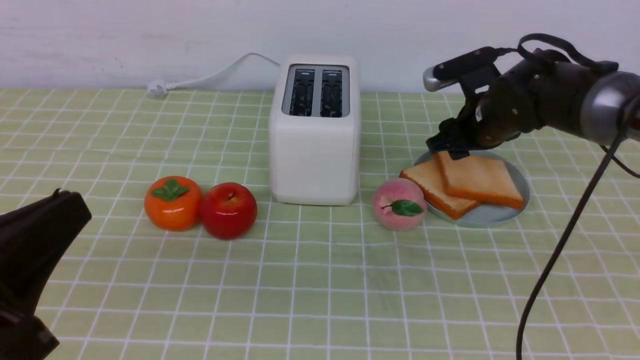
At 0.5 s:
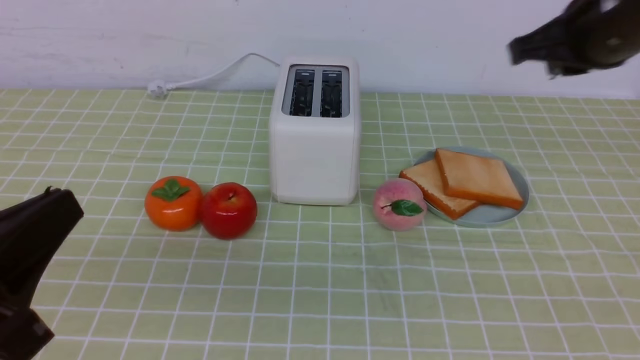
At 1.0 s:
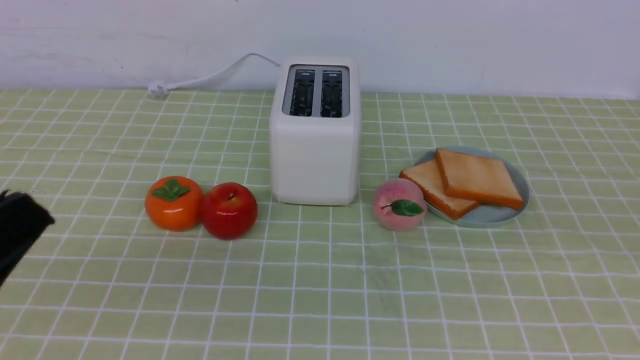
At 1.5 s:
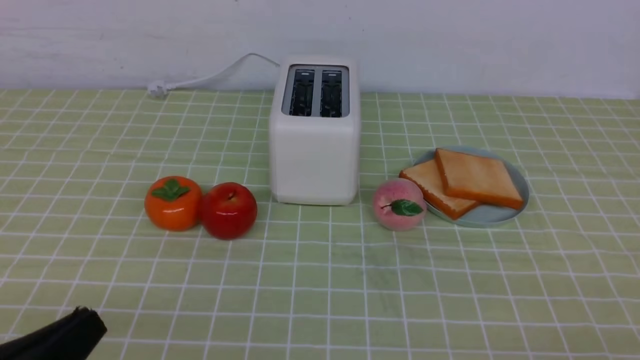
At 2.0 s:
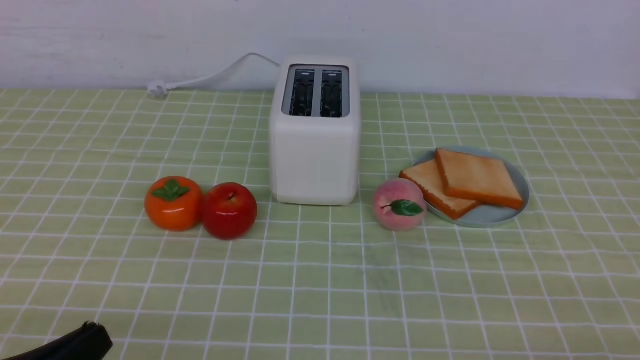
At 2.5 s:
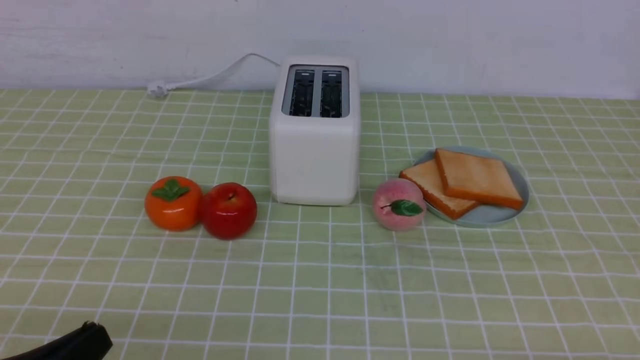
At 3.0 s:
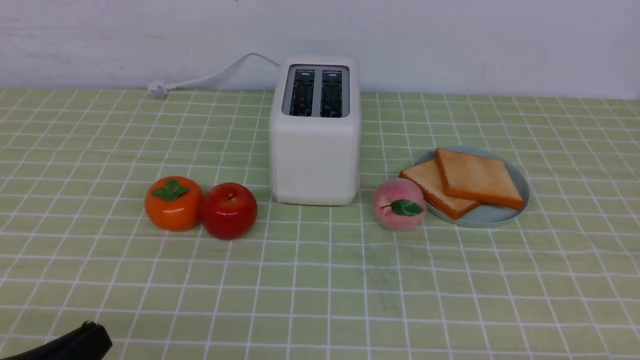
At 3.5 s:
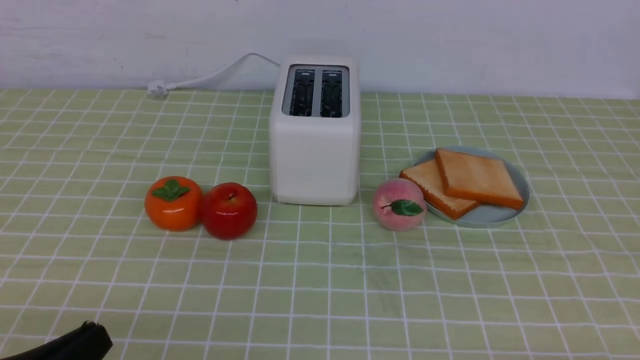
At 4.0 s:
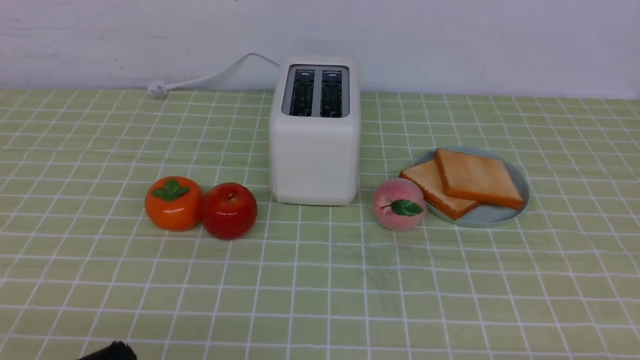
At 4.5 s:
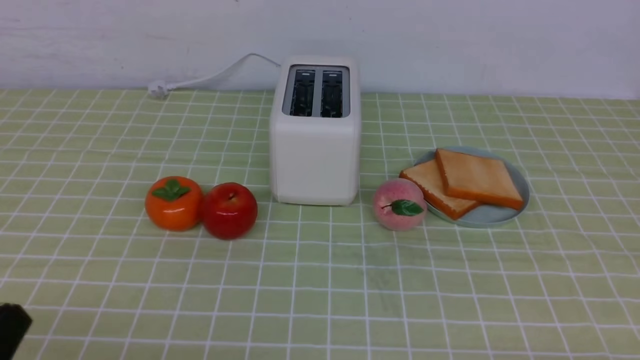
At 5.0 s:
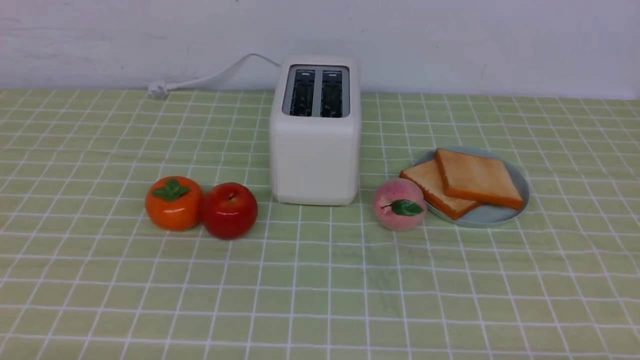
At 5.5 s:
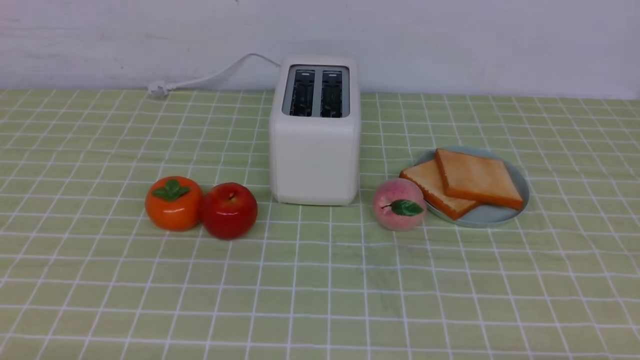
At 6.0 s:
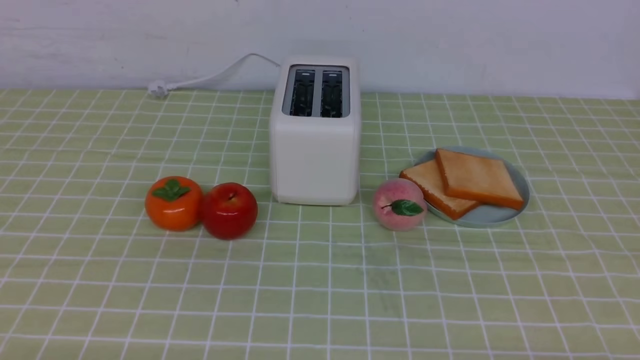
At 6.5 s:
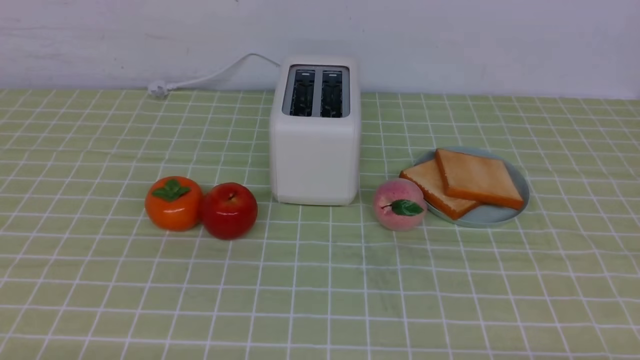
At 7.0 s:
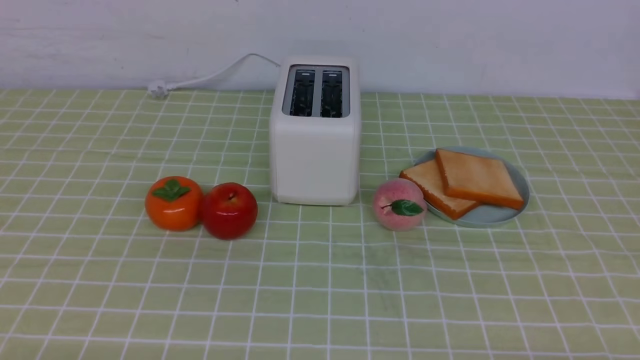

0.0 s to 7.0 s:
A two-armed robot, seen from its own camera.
Task of the whole recording: take toasted bread from bread machine on green coffee tablecloth place on plate.
0.0 to 2.0 s: The left gripper shifts approximately 10 cm downward. The right gripper travels backward by approximately 40 cm, and closes its fingers.
3.5 to 5.0 s: The left gripper ends up some 5 cm from where it was.
5.0 to 7.0 s: The two grippers keep their place.

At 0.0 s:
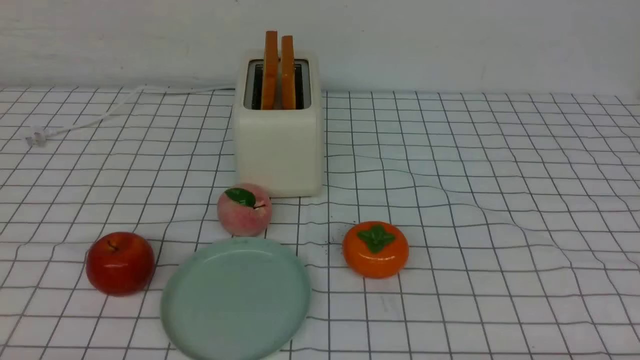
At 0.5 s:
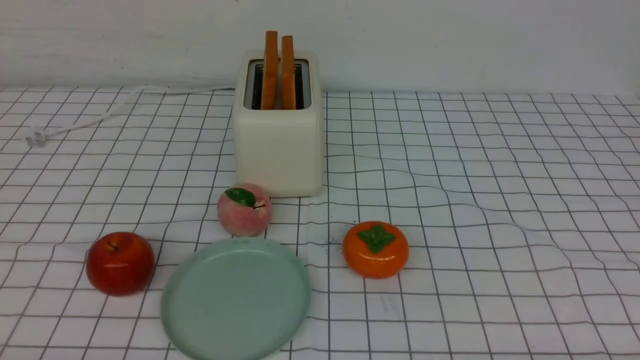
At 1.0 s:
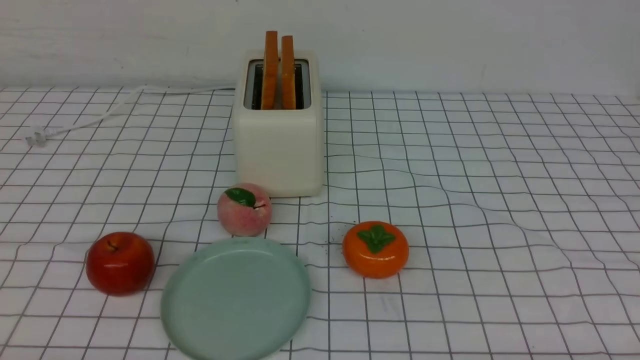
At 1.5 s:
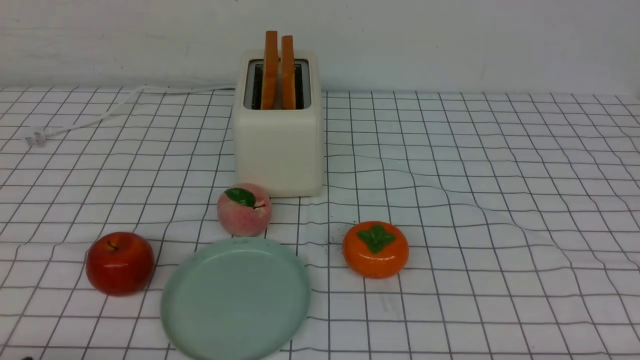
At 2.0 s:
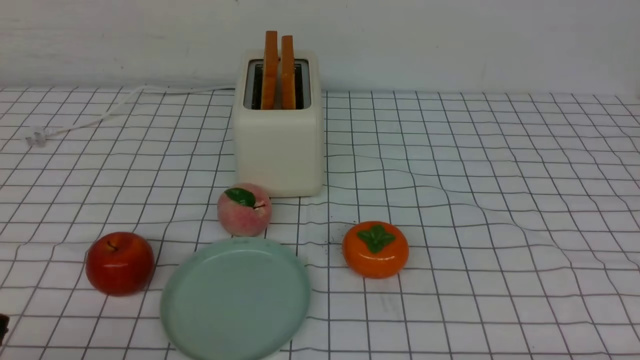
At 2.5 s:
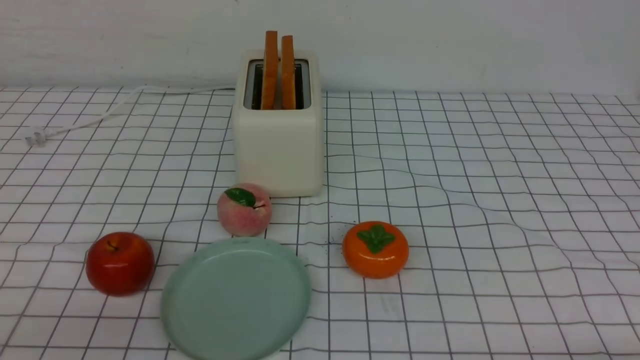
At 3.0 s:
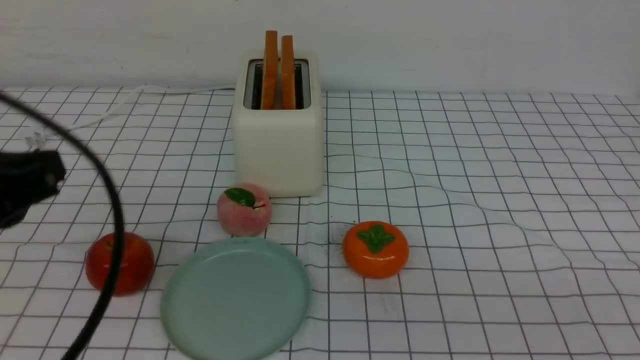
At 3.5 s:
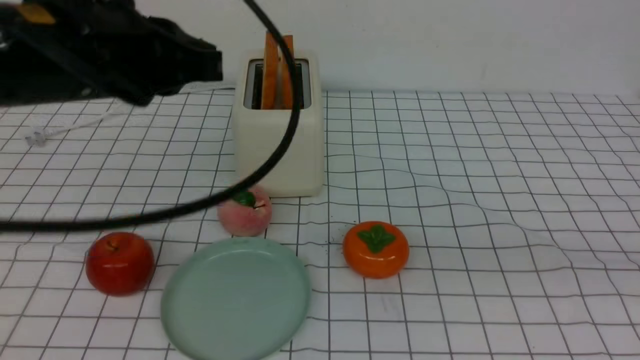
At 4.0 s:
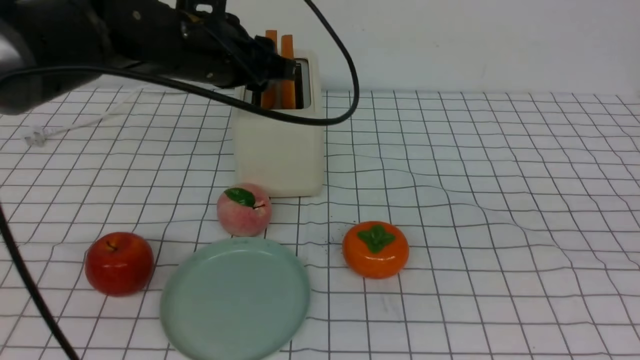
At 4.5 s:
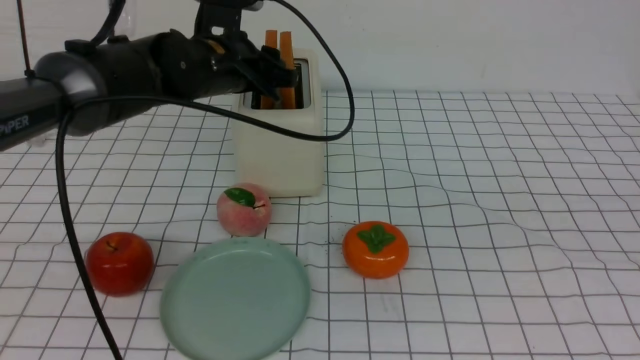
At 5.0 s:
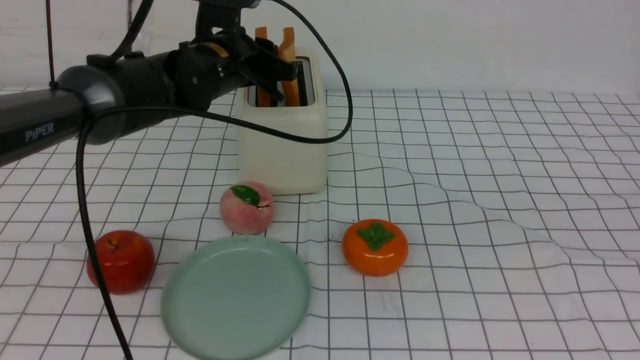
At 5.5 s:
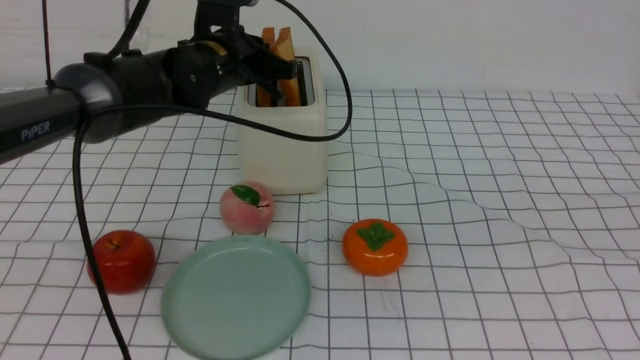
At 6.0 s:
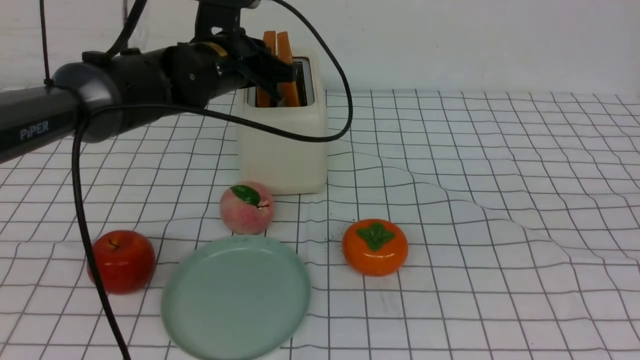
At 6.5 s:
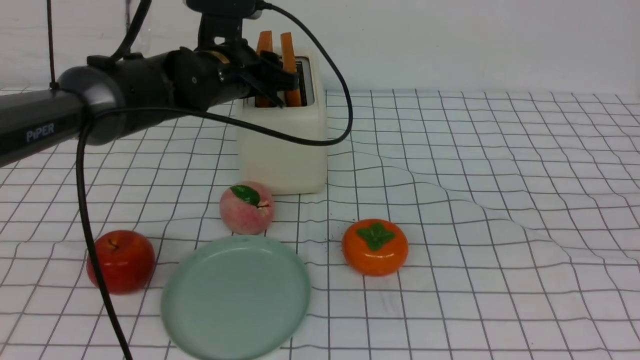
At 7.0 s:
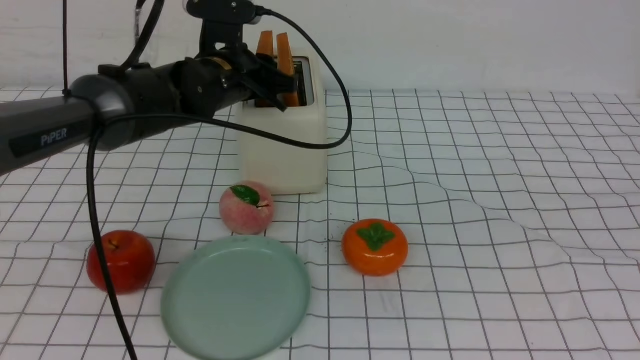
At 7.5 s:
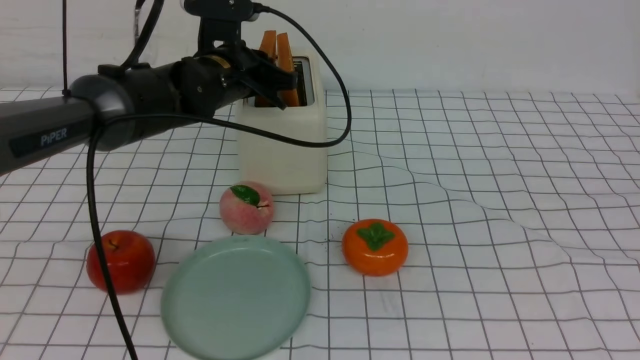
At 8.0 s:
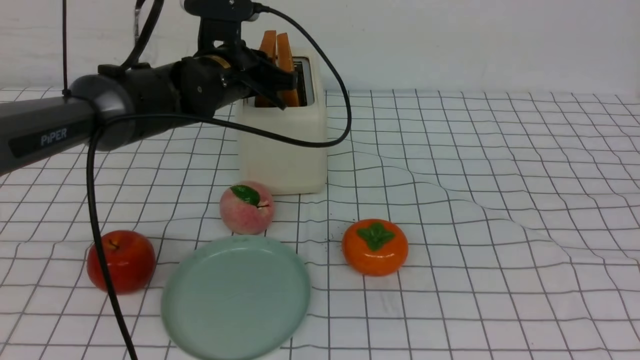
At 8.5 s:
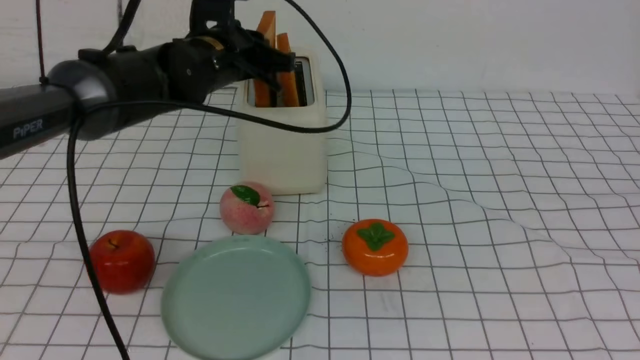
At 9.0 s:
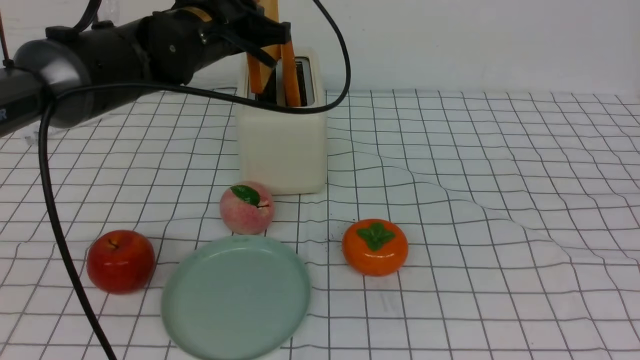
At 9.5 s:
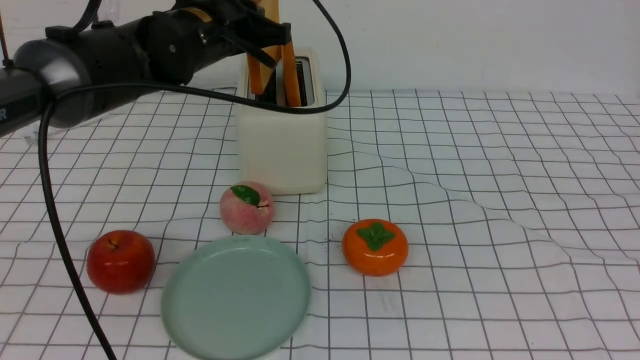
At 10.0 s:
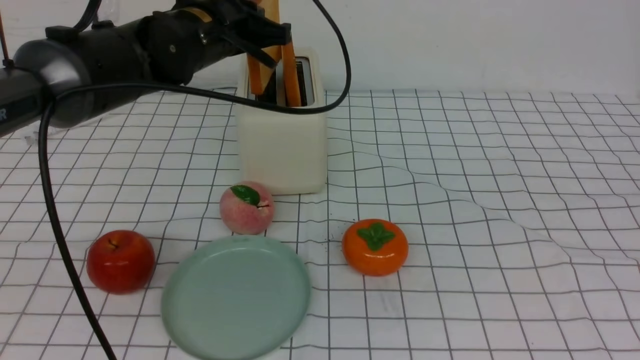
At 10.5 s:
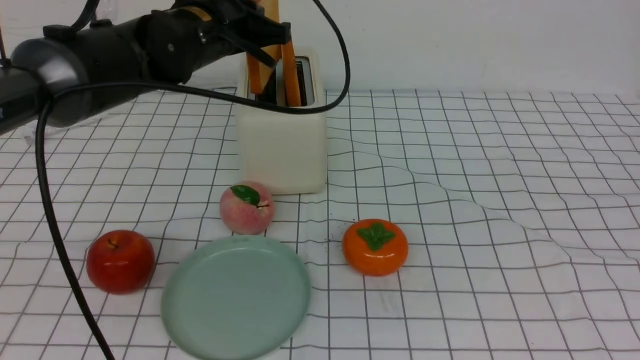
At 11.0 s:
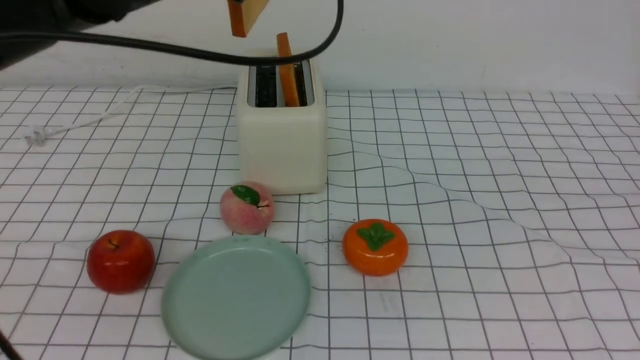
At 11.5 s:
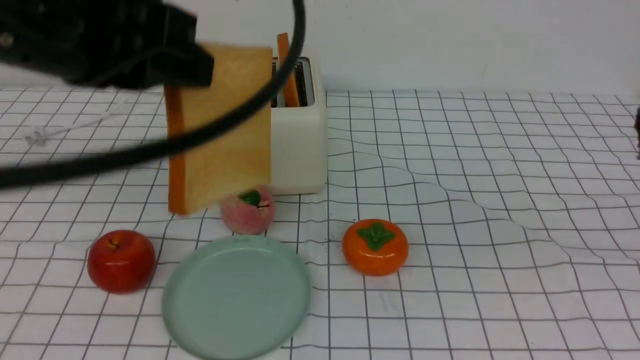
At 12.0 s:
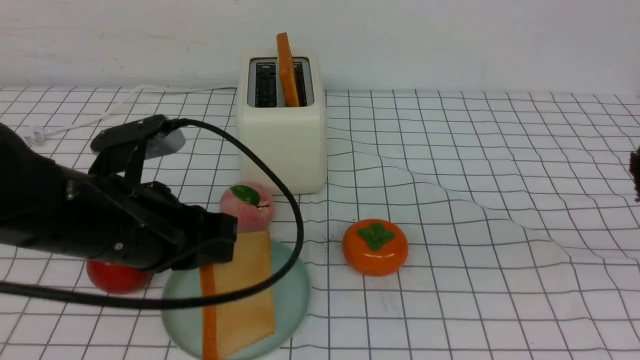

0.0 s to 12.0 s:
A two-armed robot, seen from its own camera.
Task of the whole recording: take toasted bread from bread machine on white checkered table place on plate.
Step, 0.0 to 8.5 s: use the left arm to take out a slice of bread.
2.0 to 4.0 s: The right gripper travels upward by some 25 cm, and closes. Meanwhile the left gripper shifts about 40 cm forward, upward and to the right, and closes, then opens again.
4.0 to 6.0 s: The left gripper goes about 10 cm forward and downward, and closes.
6.0 to 8.0 s: The left gripper opens, then closes again.
8.0 to 10.0 s: The left gripper shifts approximately 5 cm upward.
10.0 to 12.0 s: The left gripper shifts roughly 20 cm backward.

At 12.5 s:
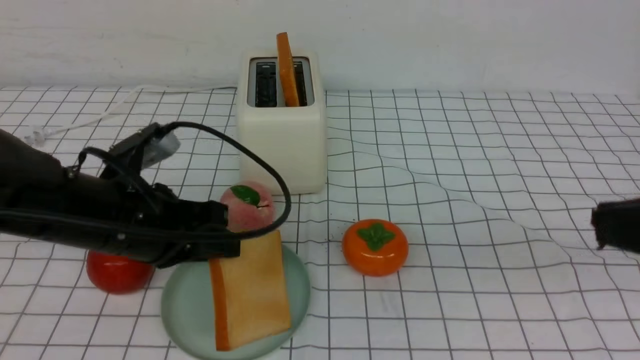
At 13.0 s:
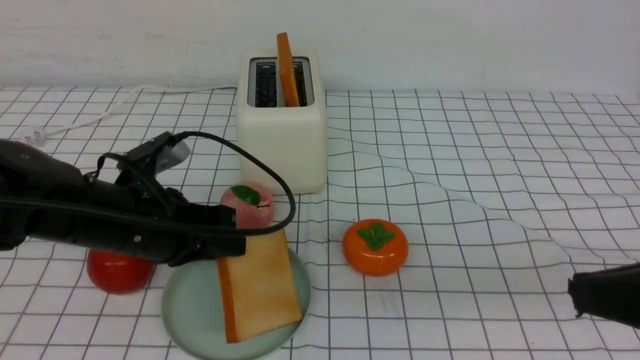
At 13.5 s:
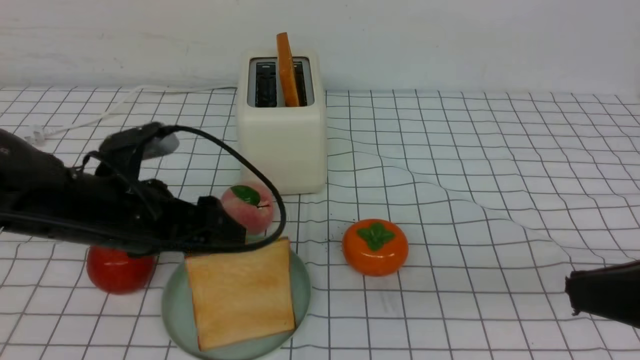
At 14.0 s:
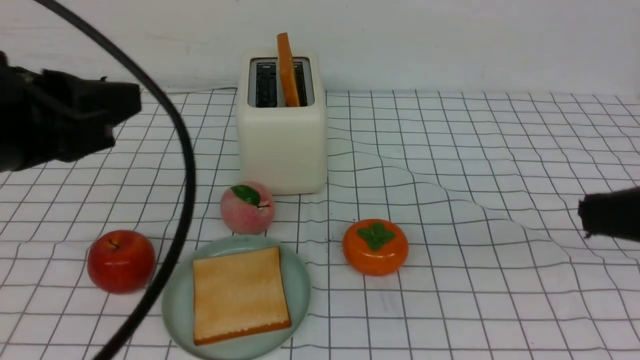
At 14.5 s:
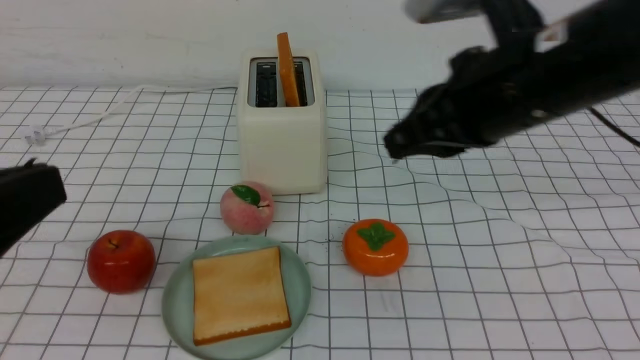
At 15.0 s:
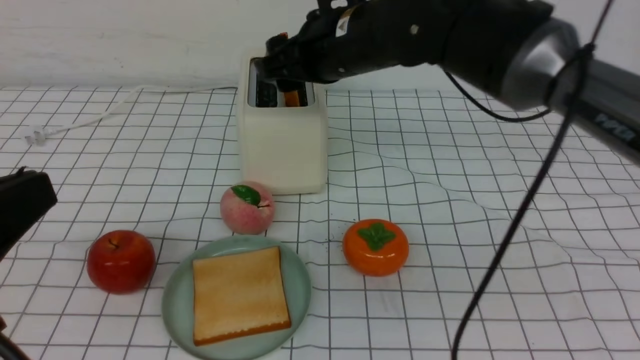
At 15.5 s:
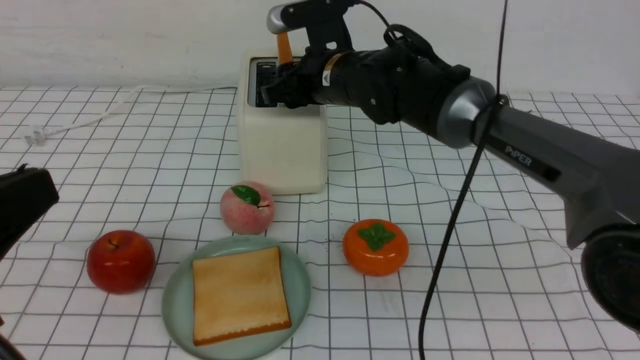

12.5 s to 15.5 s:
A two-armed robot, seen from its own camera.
Task of the whole recording: take toasted bread from bread machine on white checkered table place on plate.
12.5 to 14.0 s: The left gripper moves upward and backward, about 10 cm, and opens its fingers.
14.0 to 15.5 s: The left gripper goes about 10 cm backward, and closes its fingers, while the right gripper goes about 40 cm forward and to the left, and opens.
